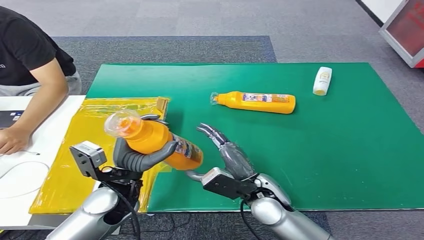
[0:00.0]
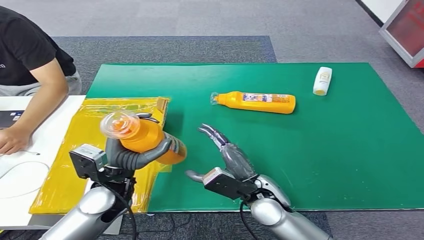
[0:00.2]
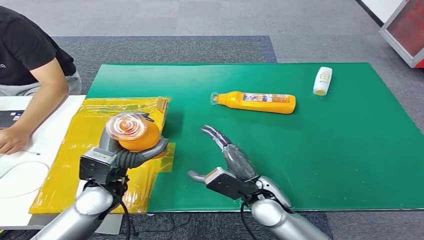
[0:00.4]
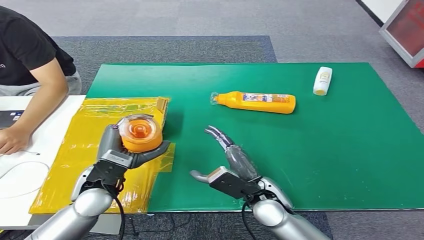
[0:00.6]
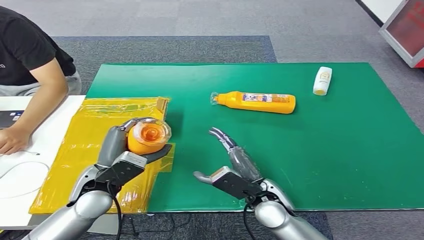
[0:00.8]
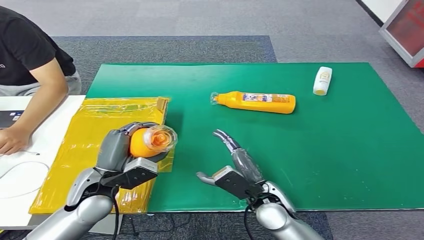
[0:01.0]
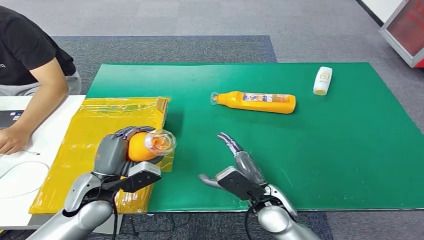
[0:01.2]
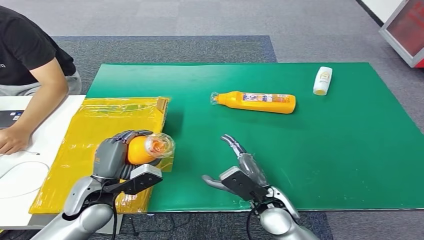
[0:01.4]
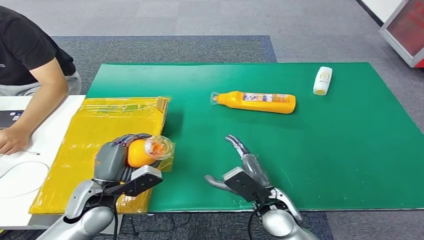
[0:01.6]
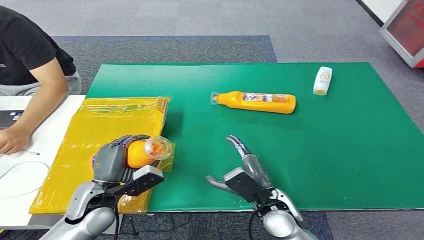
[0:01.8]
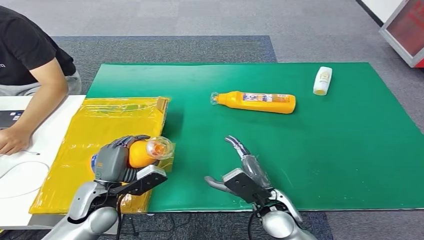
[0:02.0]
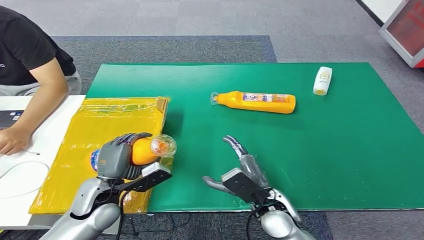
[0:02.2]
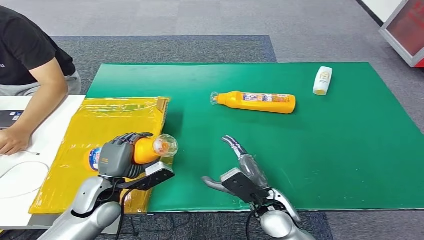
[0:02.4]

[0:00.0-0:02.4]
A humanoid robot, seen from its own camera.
Step, 0:00.0 to 0:02.4: Turn the bottle to the front side.
0:00.0 to 0:01.2: The left hand goes some 5 cm to the left.
0:01.2 to 0:02.4: The hands move only a little.

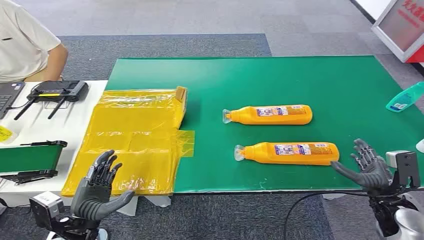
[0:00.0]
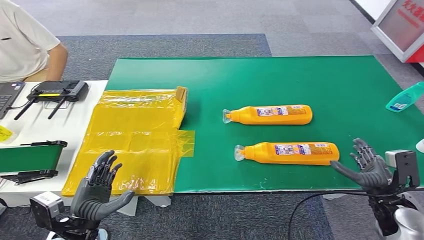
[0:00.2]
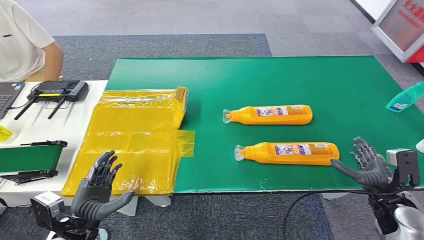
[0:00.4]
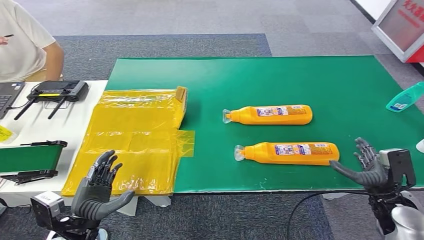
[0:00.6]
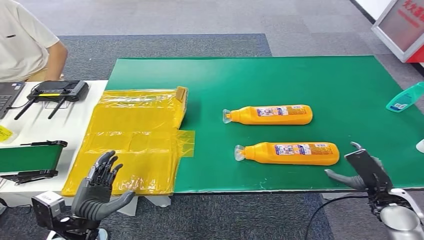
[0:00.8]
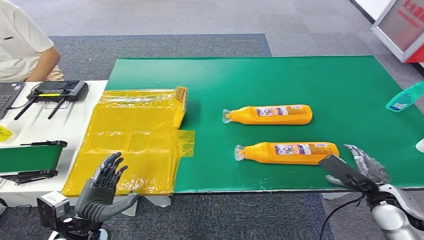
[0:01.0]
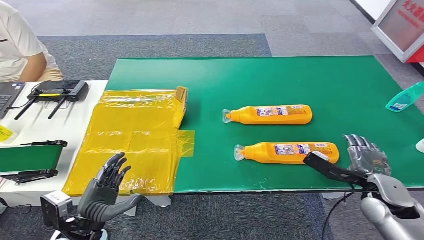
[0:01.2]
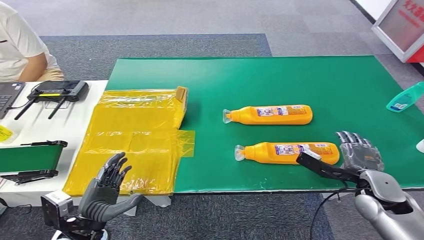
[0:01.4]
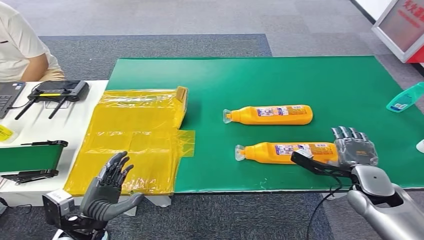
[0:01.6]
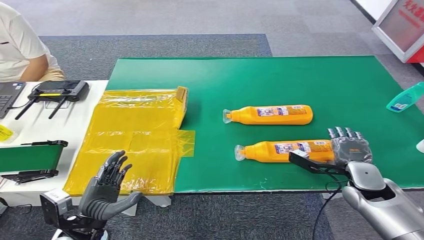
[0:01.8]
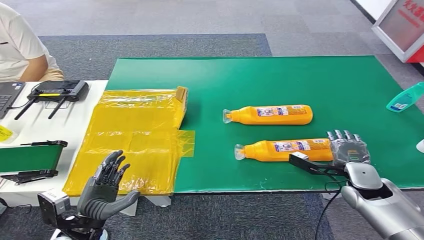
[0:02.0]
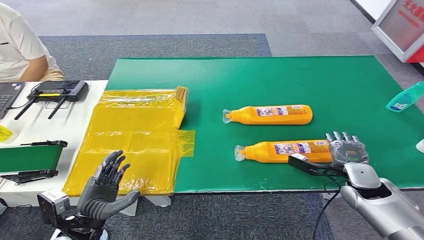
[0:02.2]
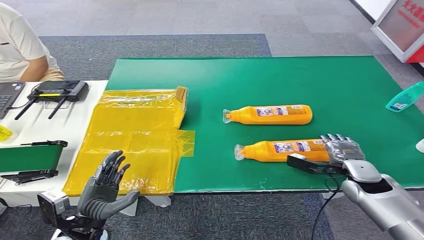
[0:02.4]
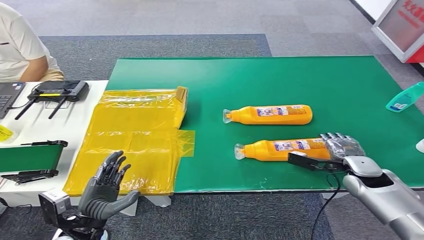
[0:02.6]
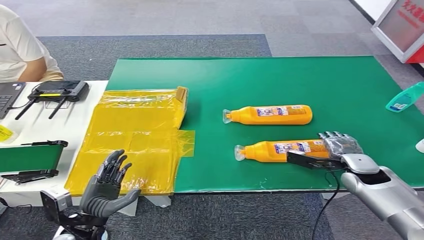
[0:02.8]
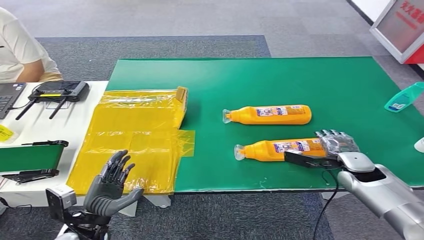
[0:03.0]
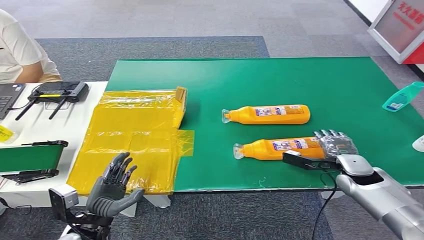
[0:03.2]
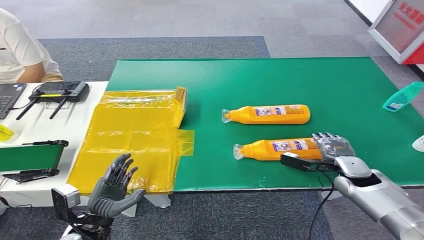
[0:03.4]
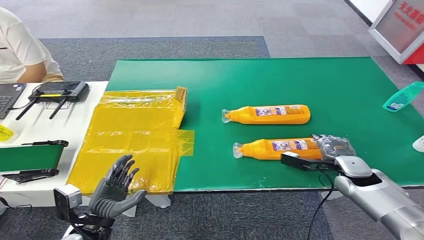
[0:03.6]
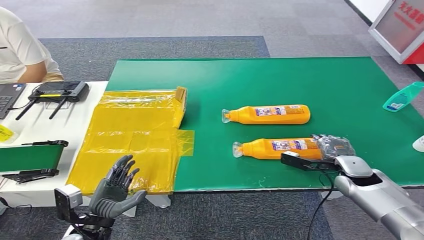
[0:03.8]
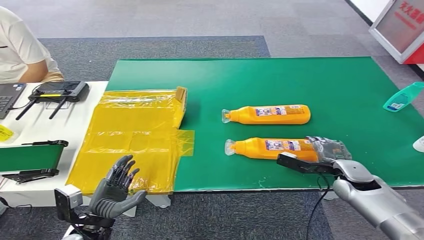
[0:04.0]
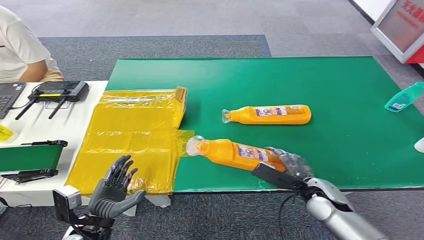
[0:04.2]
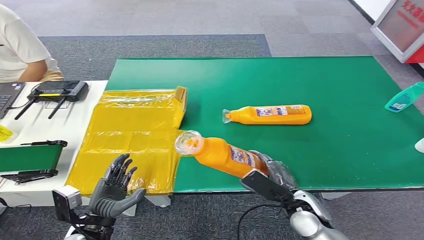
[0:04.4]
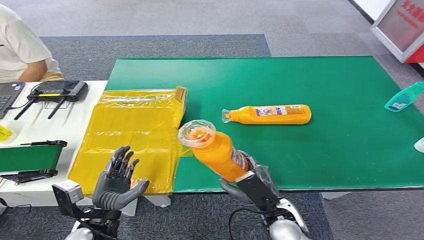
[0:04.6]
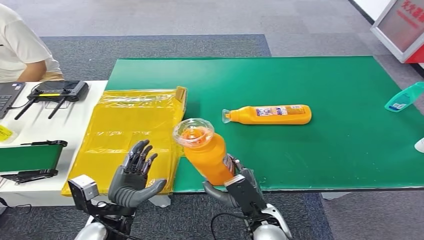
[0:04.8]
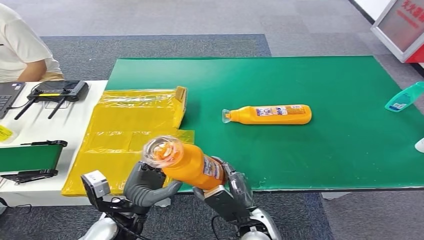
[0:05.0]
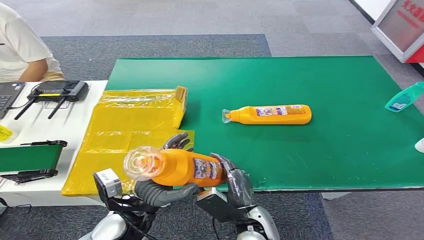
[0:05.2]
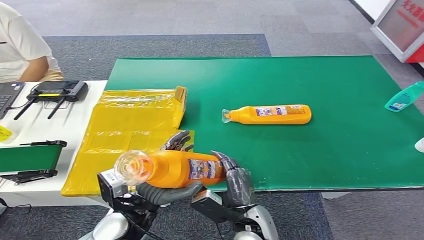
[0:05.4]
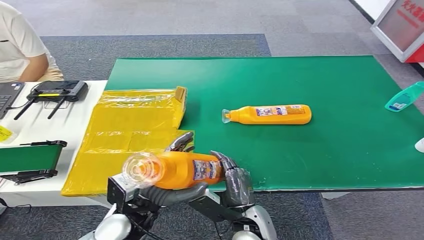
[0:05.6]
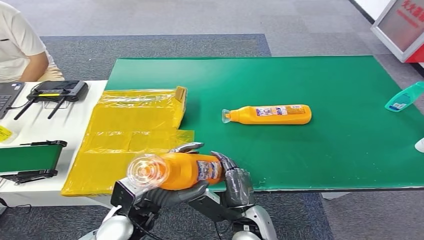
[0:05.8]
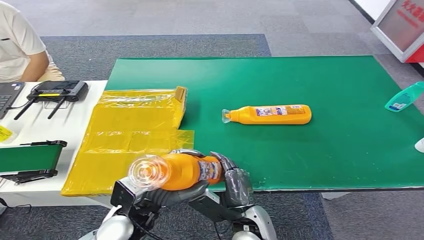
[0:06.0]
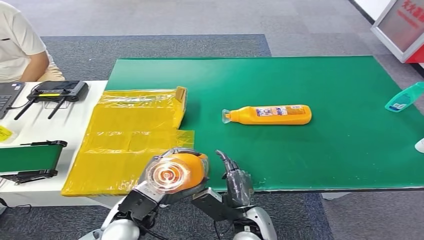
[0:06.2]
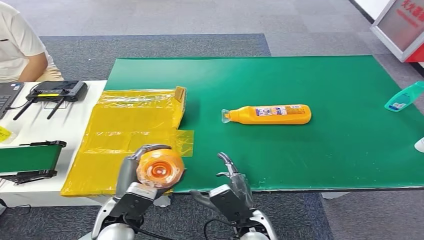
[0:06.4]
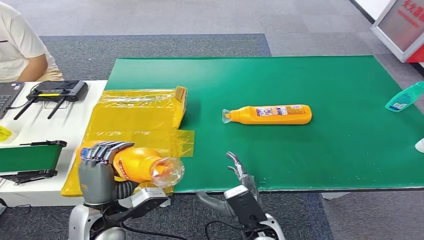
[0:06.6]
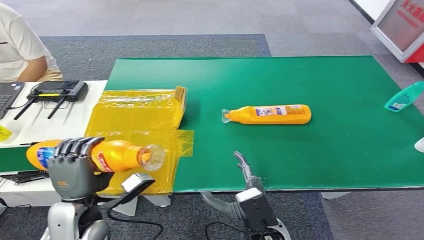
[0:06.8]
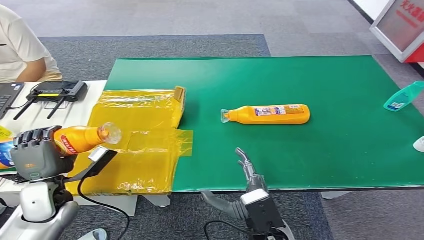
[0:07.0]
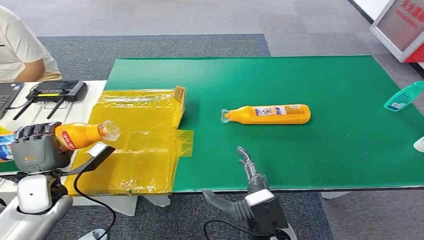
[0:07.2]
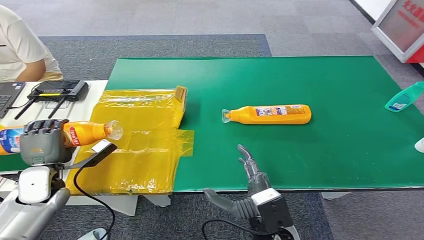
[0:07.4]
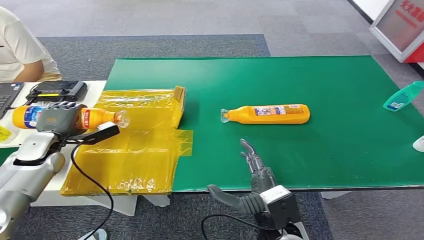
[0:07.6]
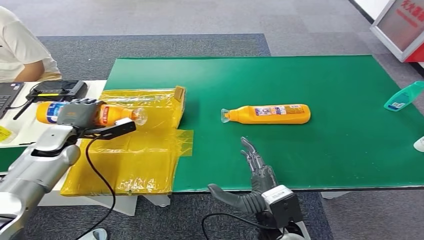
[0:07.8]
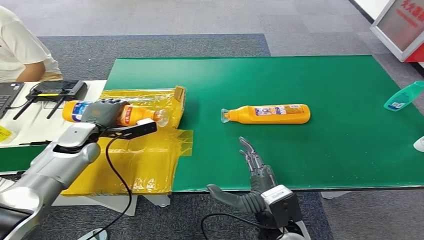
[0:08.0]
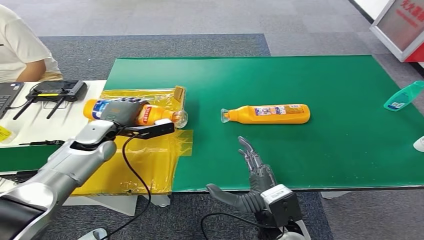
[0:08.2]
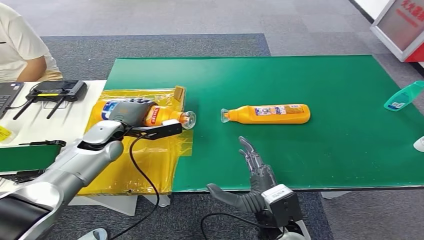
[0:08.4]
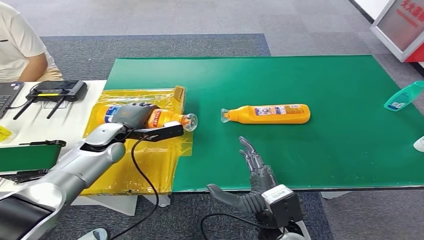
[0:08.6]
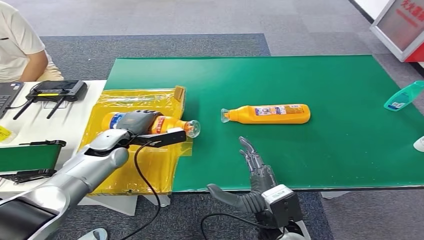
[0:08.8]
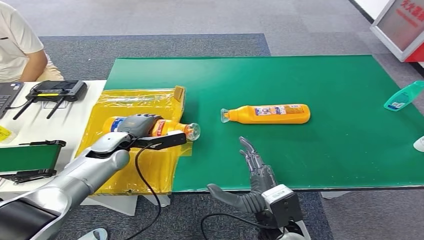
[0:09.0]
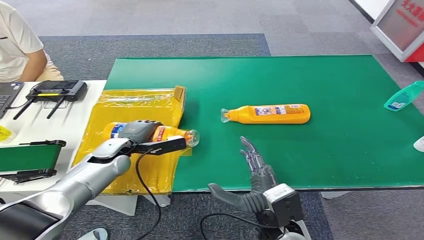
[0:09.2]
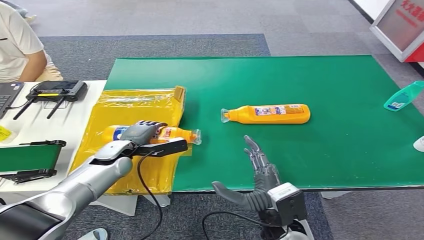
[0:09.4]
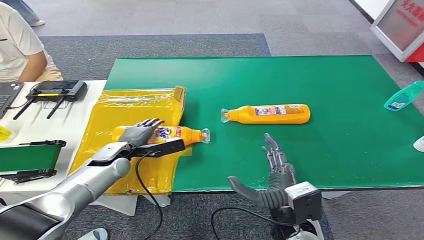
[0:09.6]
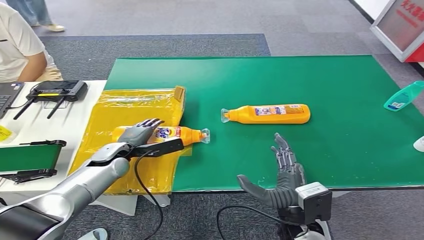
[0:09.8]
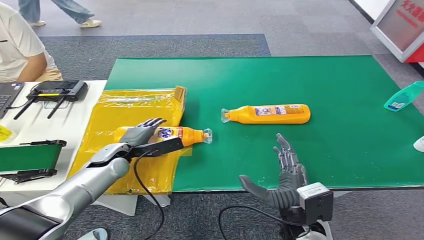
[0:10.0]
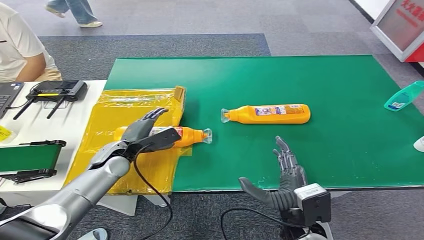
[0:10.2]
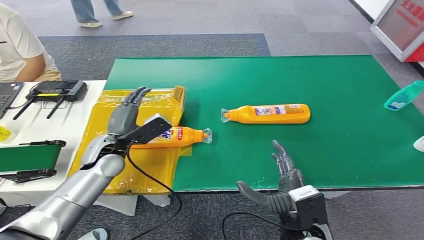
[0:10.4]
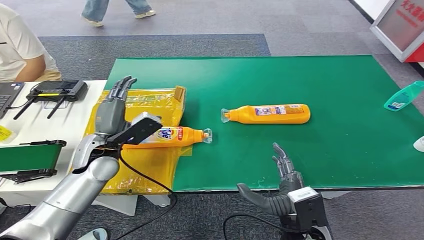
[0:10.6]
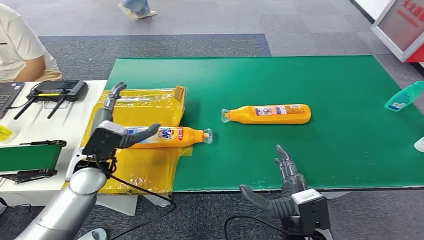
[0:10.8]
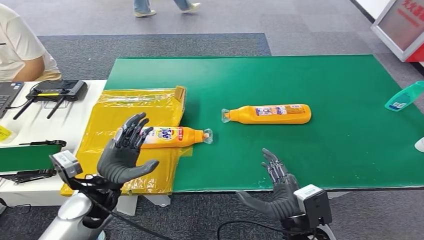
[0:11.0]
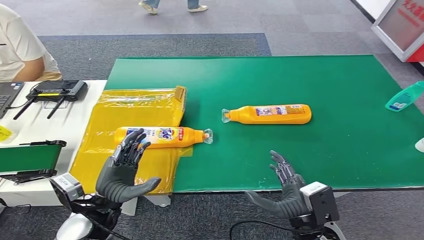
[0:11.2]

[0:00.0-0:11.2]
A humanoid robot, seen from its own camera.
Step, 0:00.0 to 0:05.0: Pick up the bottle from the table.
Step, 0:05.4 to 0:11.2: Turn the bottle to the front side.
0:01.6 to 0:03.2: The right hand goes roughly 5 cm forward.
0:08.0 to 0:09.6: The left hand shifts about 10 cm to the right and downward.
0:09.6 to 0:11.2: The left hand travels backward by approximately 20 cm. Meanwhile the right hand travels to the right by some 5 cm.
